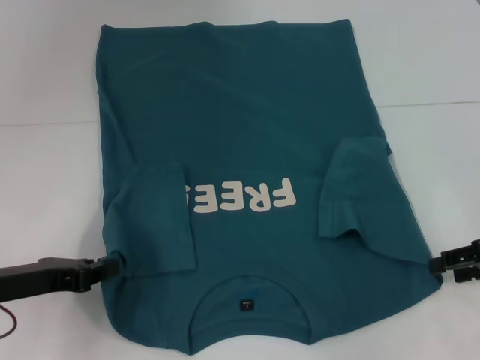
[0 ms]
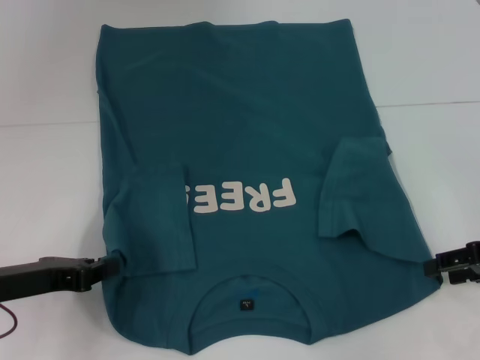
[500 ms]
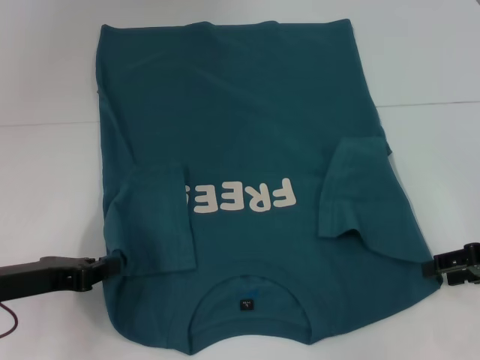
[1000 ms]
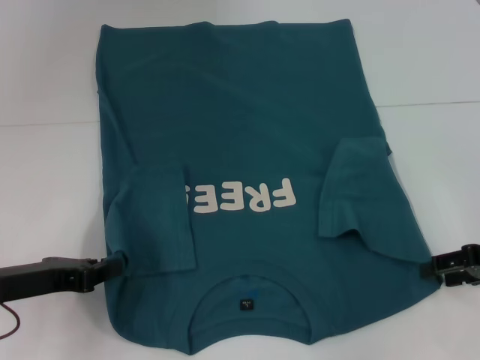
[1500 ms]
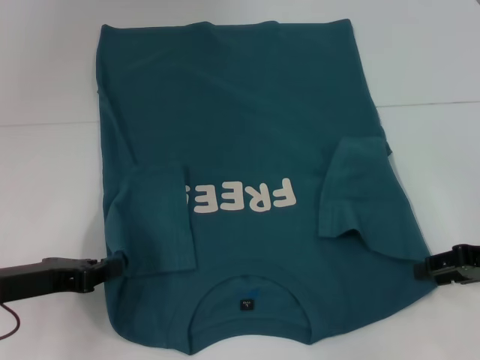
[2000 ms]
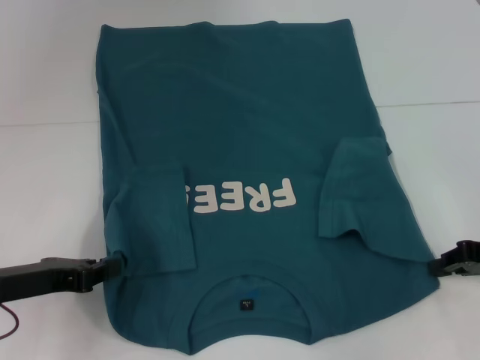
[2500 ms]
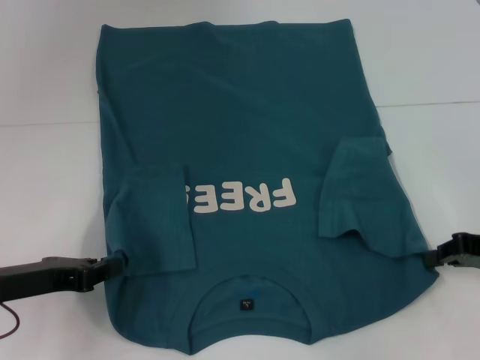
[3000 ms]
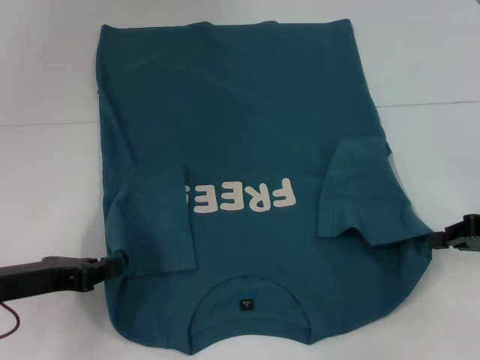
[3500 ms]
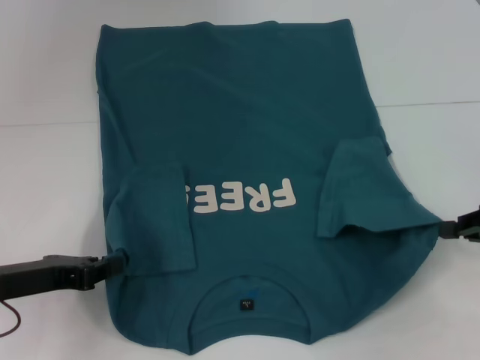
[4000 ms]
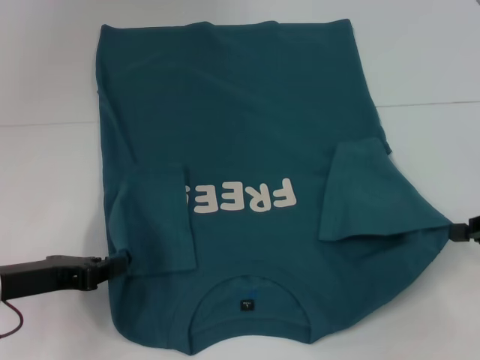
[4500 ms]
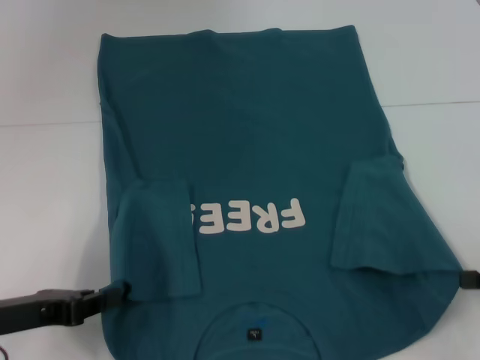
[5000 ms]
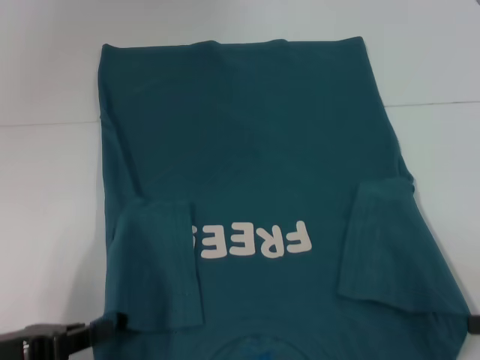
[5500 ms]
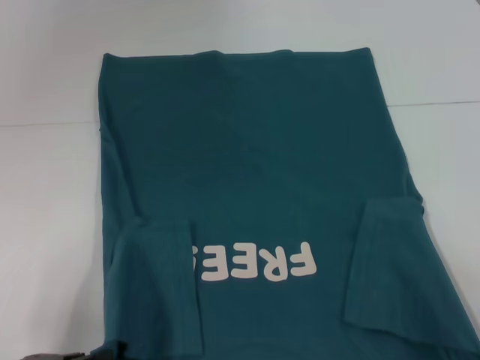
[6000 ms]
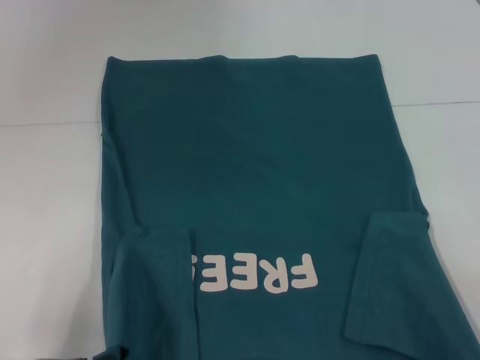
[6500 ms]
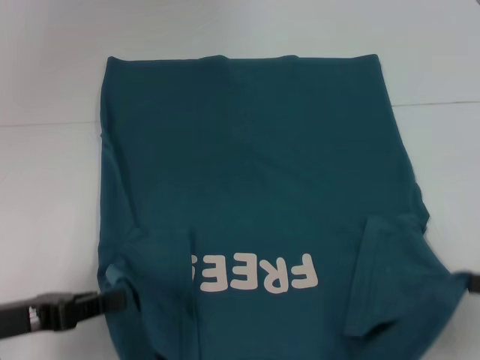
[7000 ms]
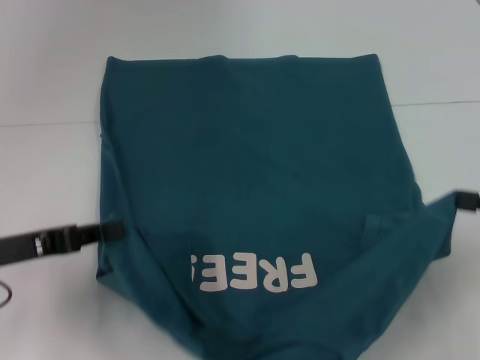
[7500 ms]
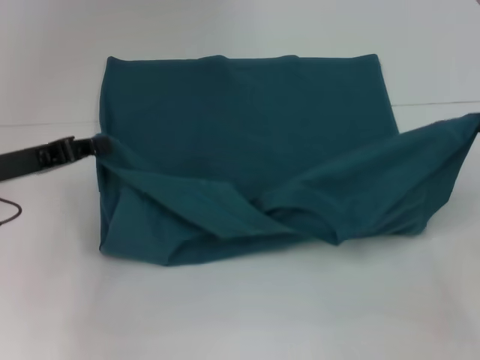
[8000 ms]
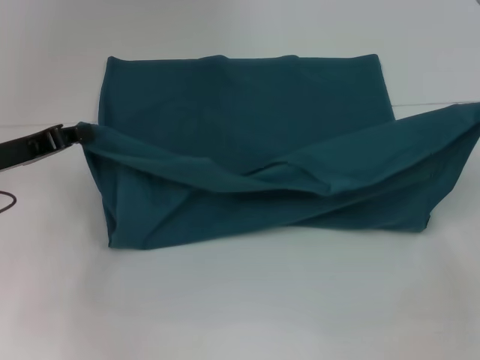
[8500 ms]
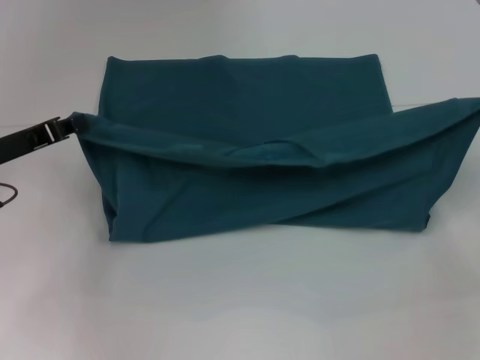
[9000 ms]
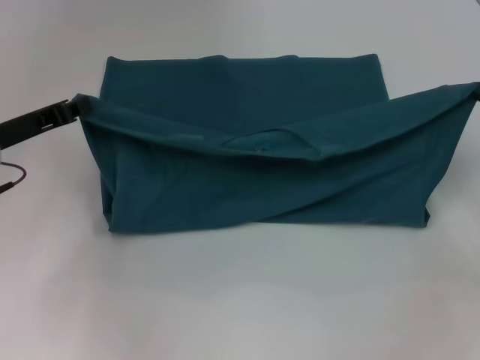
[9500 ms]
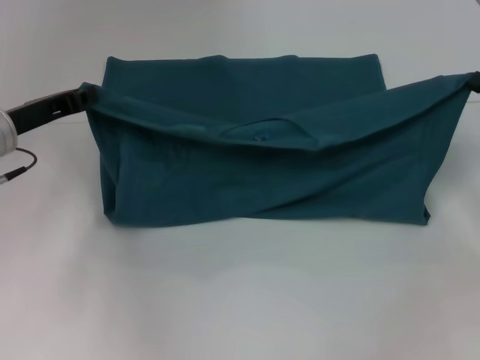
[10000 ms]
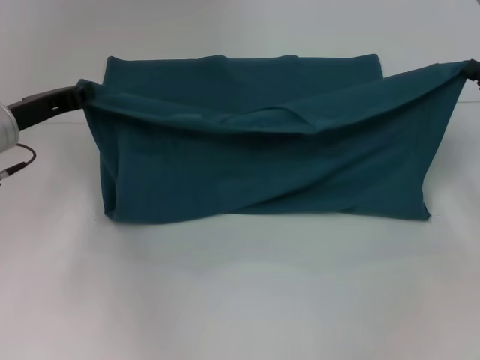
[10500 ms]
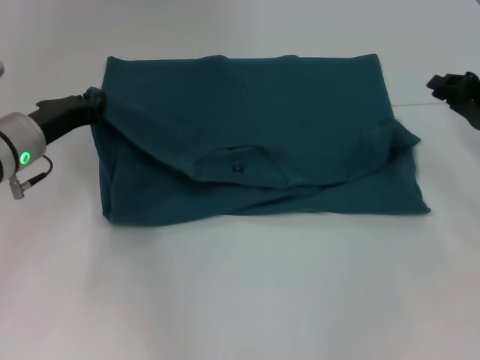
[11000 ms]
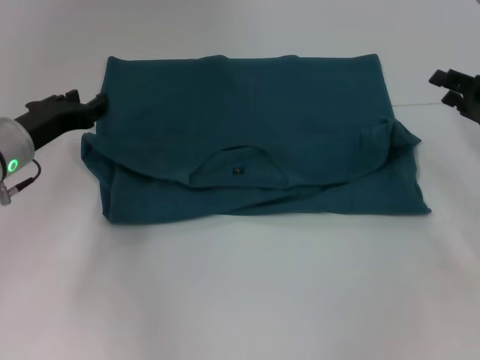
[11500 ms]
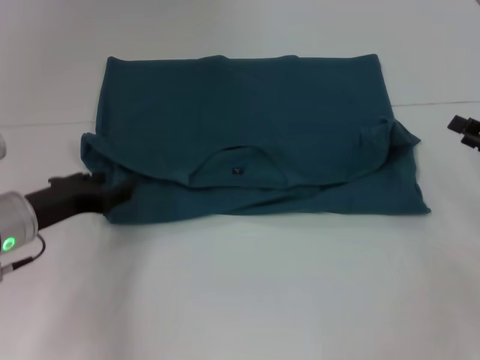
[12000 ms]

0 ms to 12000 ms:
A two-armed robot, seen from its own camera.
Step, 0 ms to 3500 ms: Grab the bottom right corner with your right hand.
Step, 4000 ms to 11000 ms: Fold the clothes to the left.
Step, 4000 ms to 11000 ms: Fold the clothes to the right.
0 ms to 2000 ms: The grippers move only a little.
2000 ms to 4000 ms: The right gripper closes its fingers.
4000 ms to 6000 ms: The grippers both shift backward by approximately 10 cm.
6000 ms to 8000 ms: Both grippers travel together forward and upward, approximately 15 cm.
8000 ms to 10000 ms: Both grippers move forward, about 5 cm.
10000 ms to 12000 ms: The right gripper opens. The left gripper heads backward, covering about 5 cm, and opens.

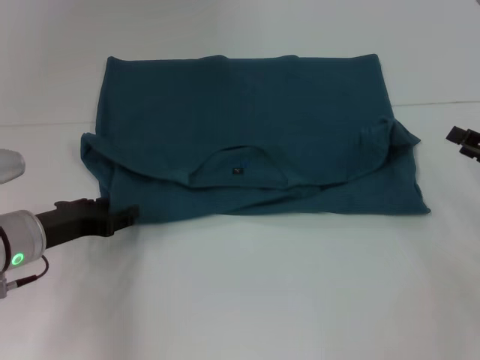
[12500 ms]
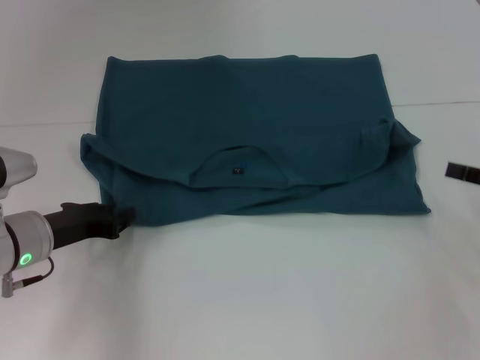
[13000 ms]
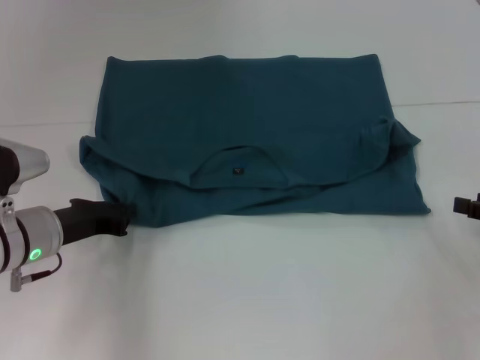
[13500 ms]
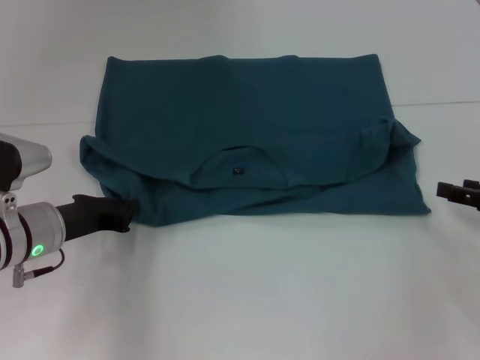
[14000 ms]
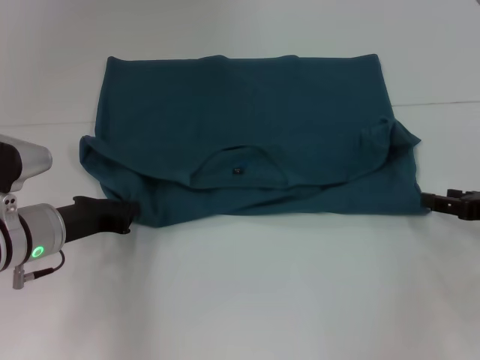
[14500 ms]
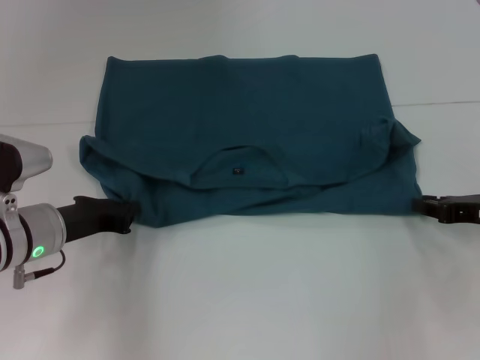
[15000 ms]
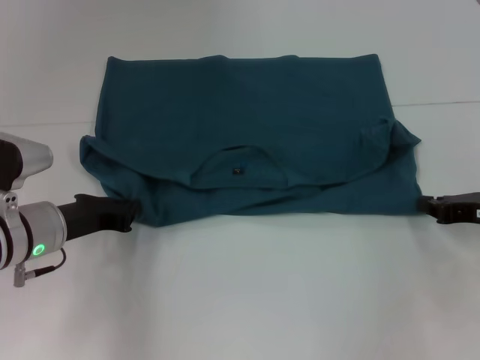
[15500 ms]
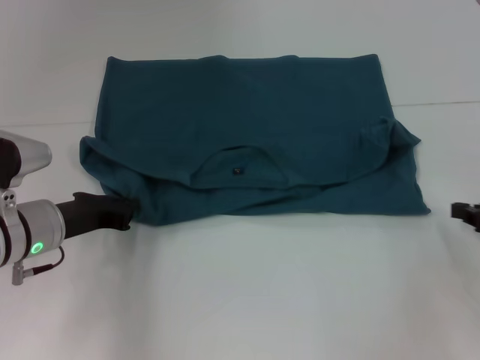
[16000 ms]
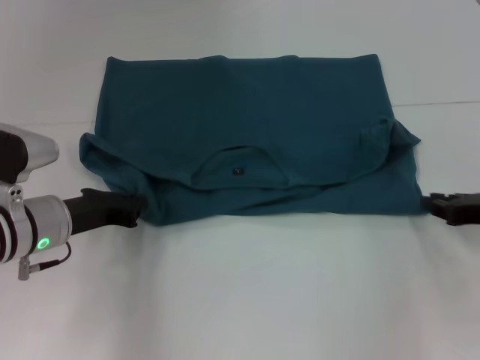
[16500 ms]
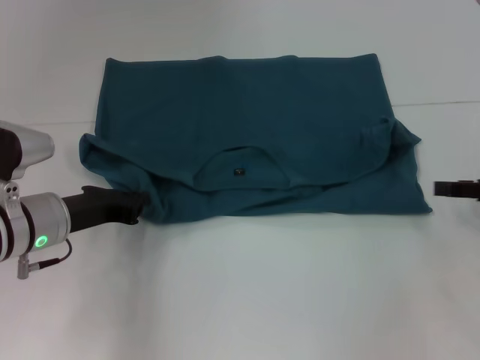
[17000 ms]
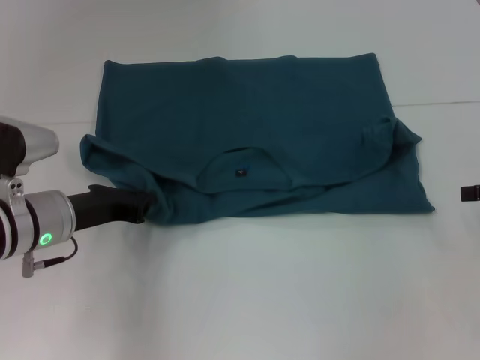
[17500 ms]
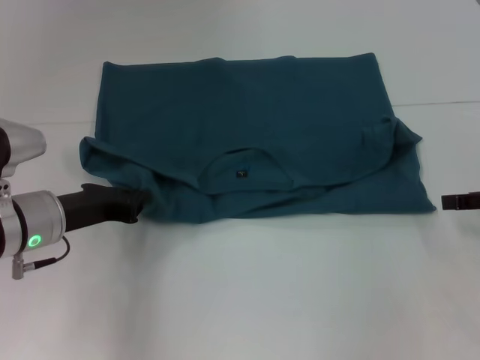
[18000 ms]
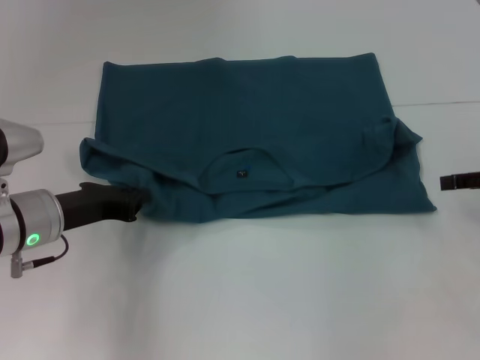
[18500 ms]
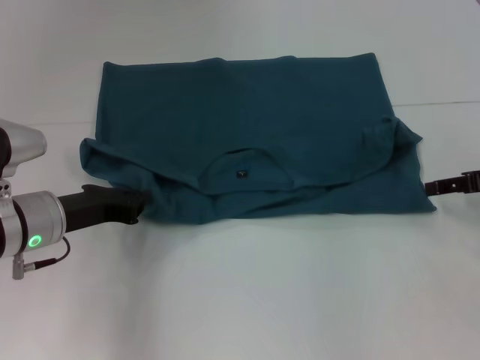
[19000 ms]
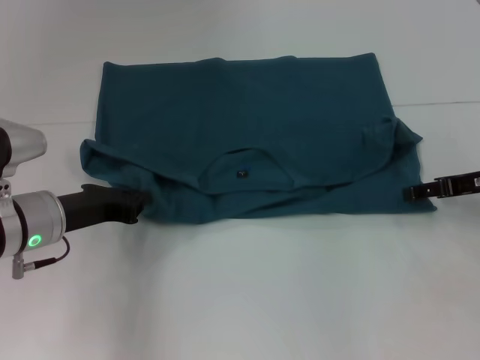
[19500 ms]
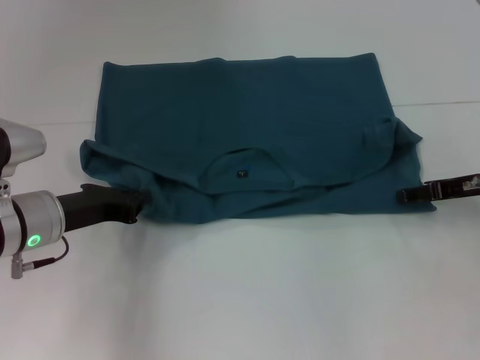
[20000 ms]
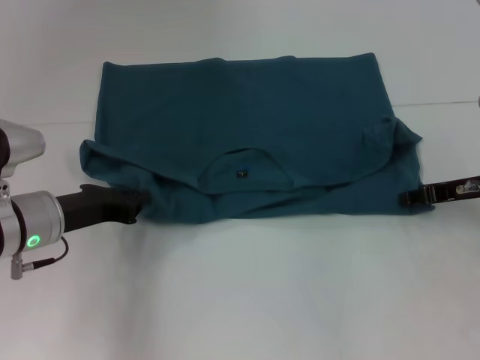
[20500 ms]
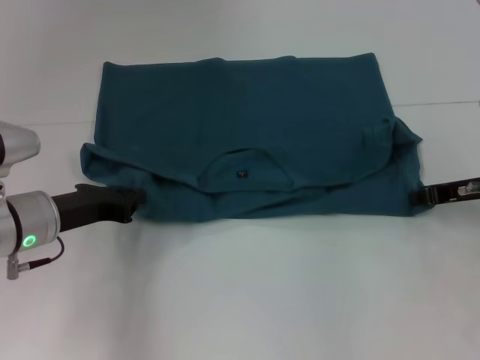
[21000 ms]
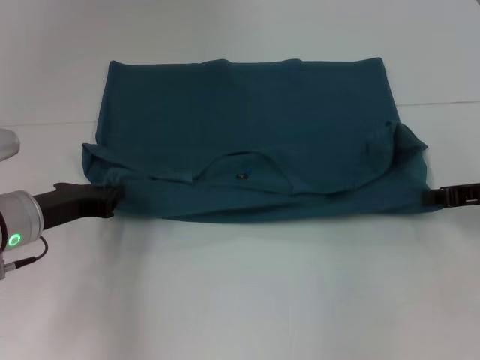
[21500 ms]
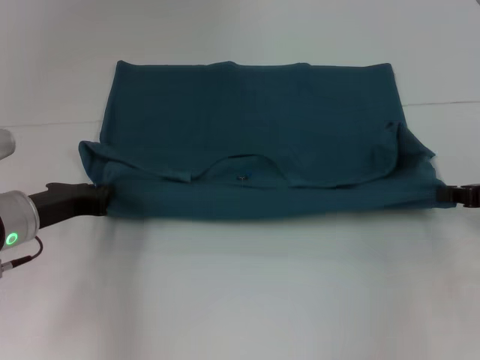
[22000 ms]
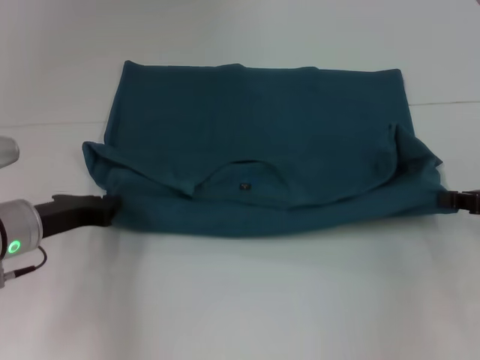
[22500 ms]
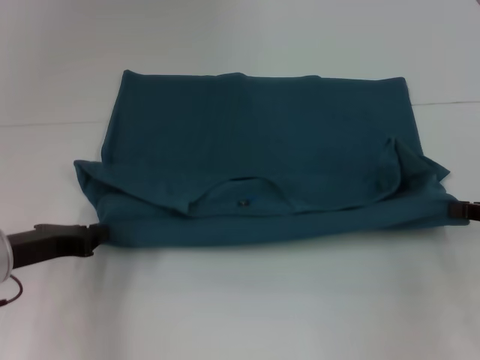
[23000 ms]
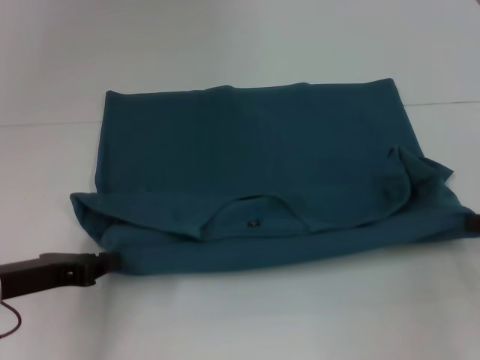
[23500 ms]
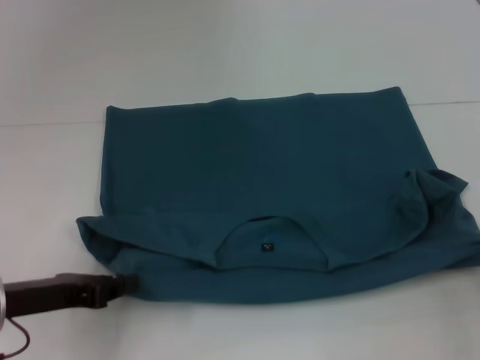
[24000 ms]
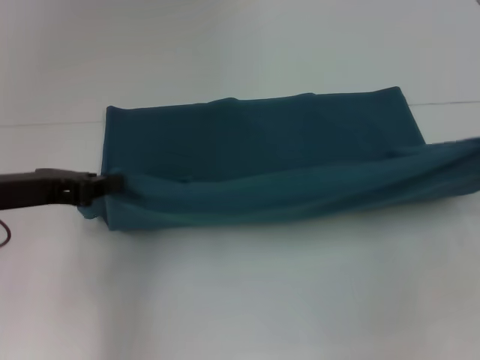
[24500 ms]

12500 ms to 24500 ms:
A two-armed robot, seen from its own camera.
12500 ms to 14500 ms: The left gripper closes its fingers.
16500 ms to 18500 ms: The right gripper shifts roughly 5 cm upward, and opens.
18500 ms to 20500 ms: The right gripper shifts about 5 cm to the left and downward.
20500 ms to 22500 ms: The right gripper is displaced backward by some 5 cm, and closes up.
22500 ms to 24500 ms: The left gripper heads upward, covering roughly 10 cm, while the right gripper goes about 5 cm upward.

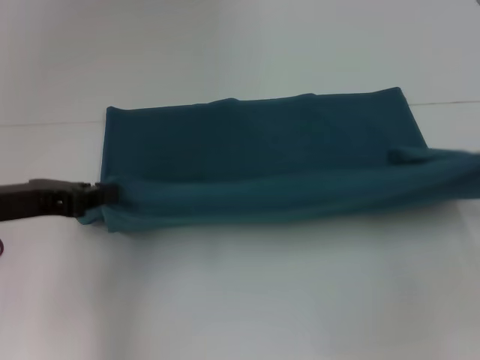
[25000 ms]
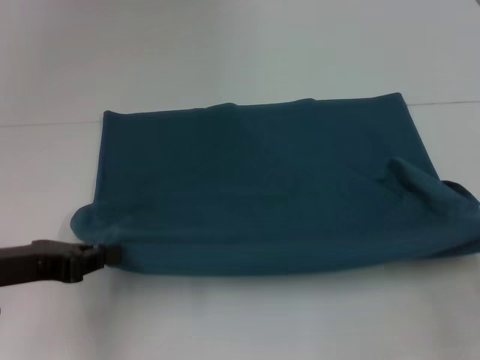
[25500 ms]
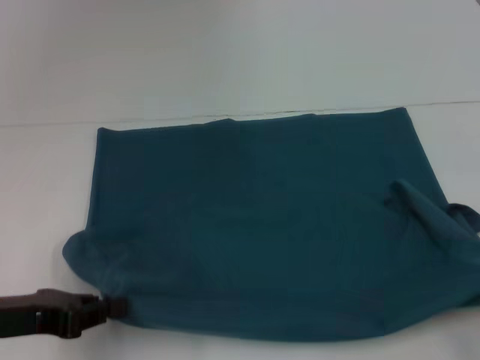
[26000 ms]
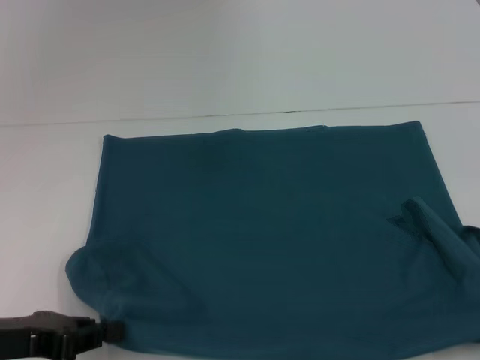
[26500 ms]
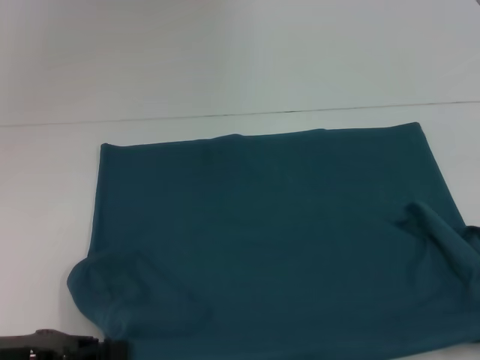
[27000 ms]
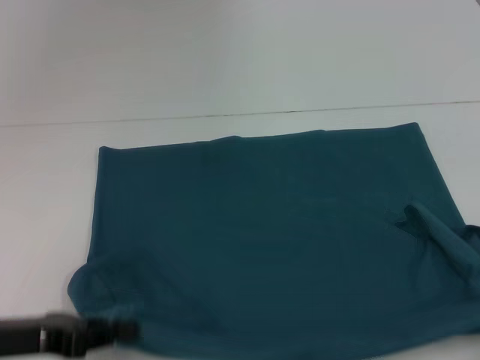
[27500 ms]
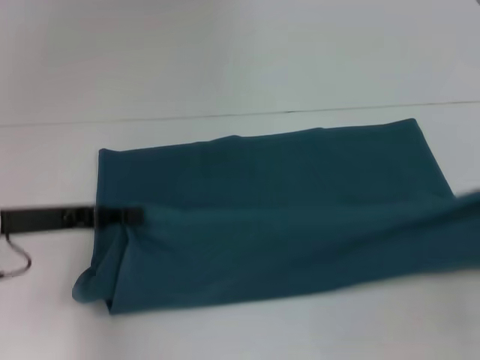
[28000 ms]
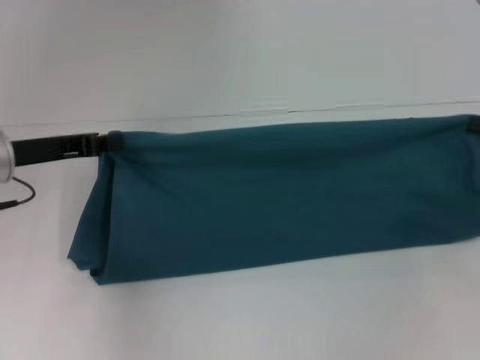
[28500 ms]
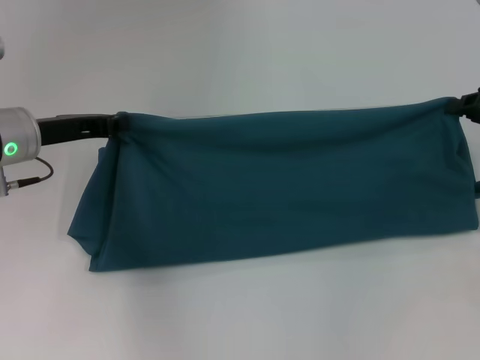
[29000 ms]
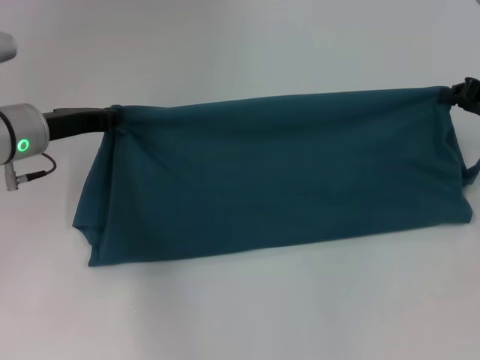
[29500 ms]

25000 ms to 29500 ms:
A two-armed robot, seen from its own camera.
25000 ms to 27000 ms: The two grippers go about 10 cm backward and downward.
27000 ms to 29500 ms: The two grippers go about 20 cm forward.
